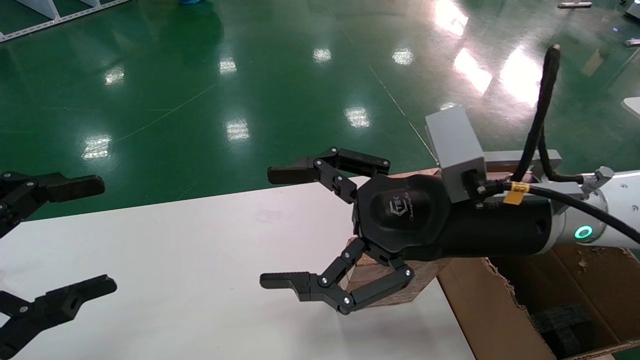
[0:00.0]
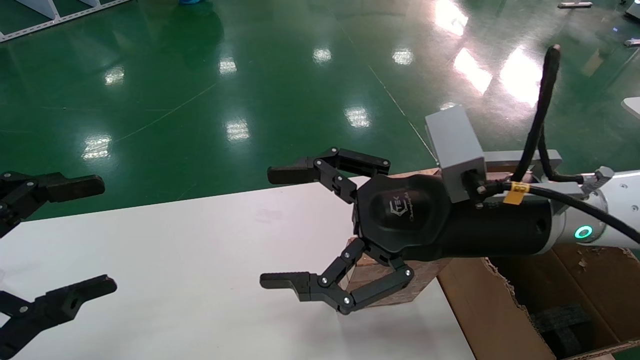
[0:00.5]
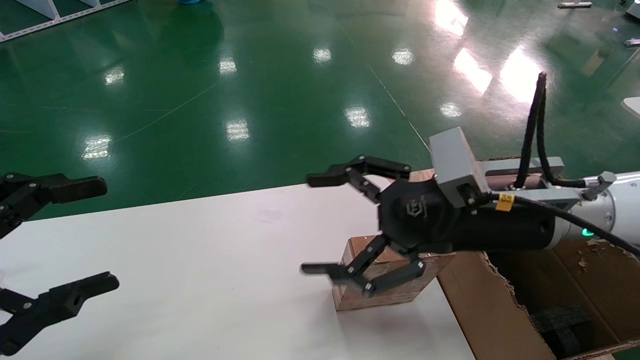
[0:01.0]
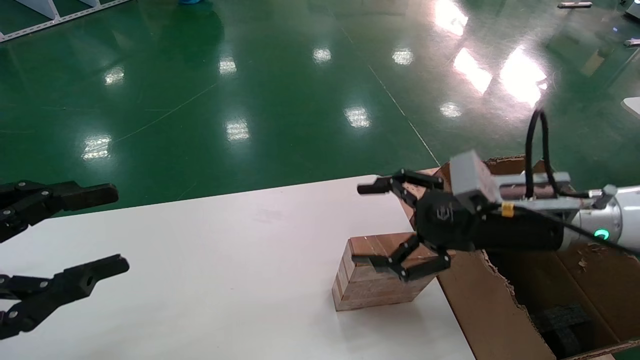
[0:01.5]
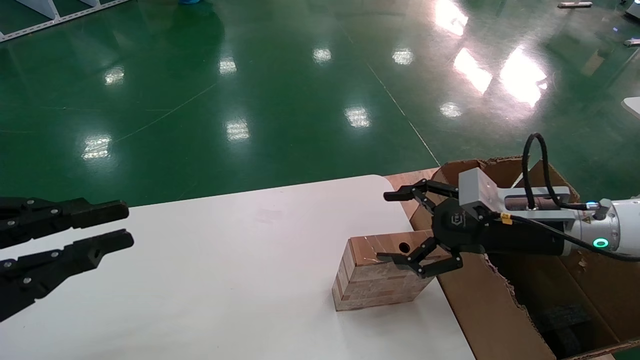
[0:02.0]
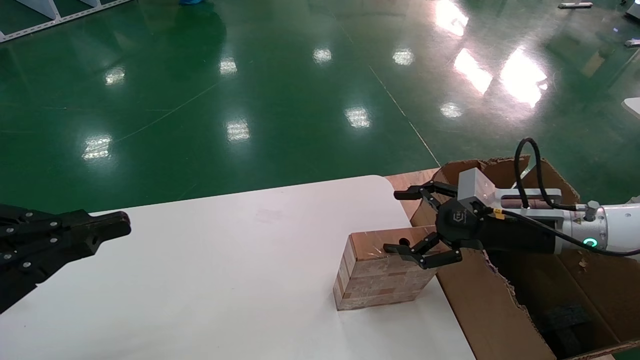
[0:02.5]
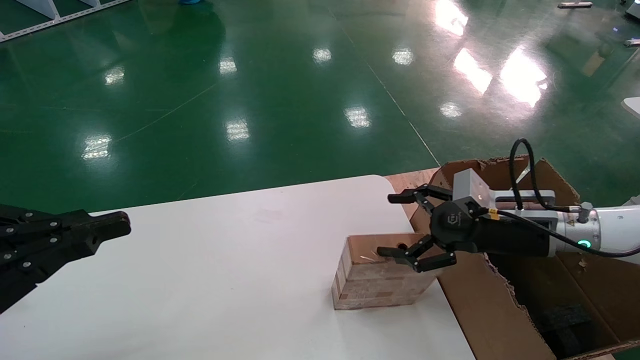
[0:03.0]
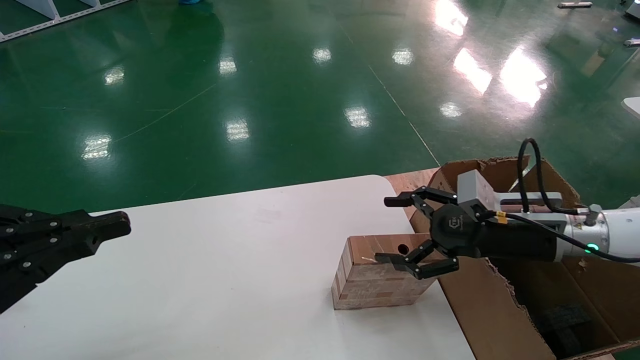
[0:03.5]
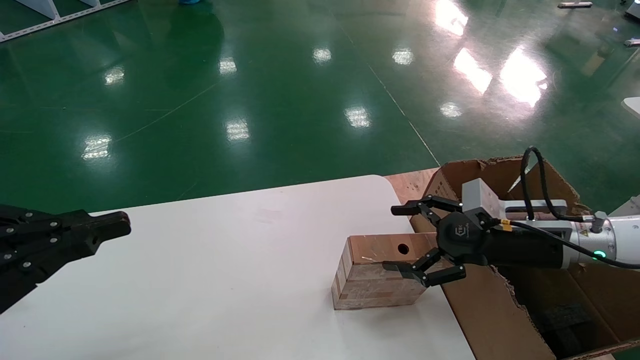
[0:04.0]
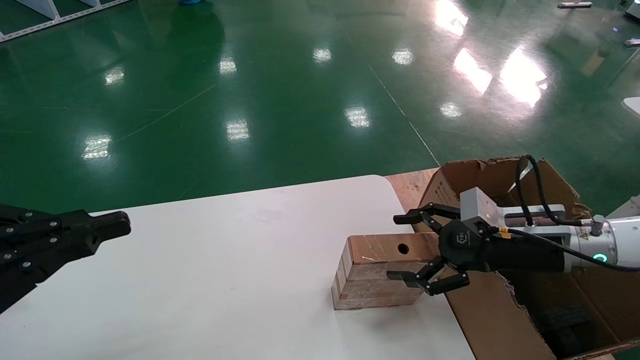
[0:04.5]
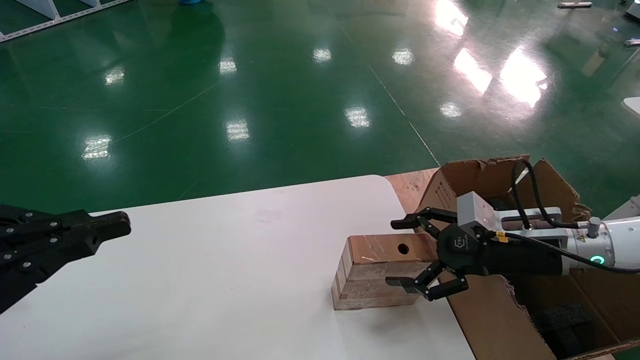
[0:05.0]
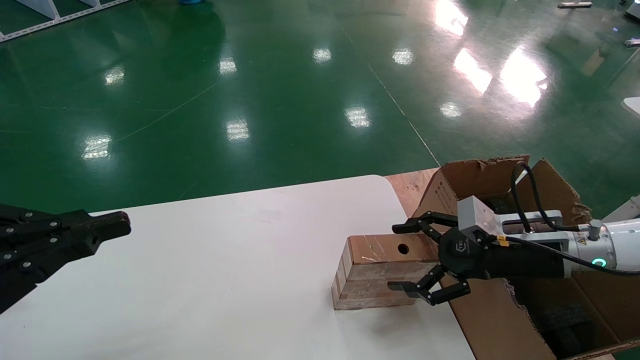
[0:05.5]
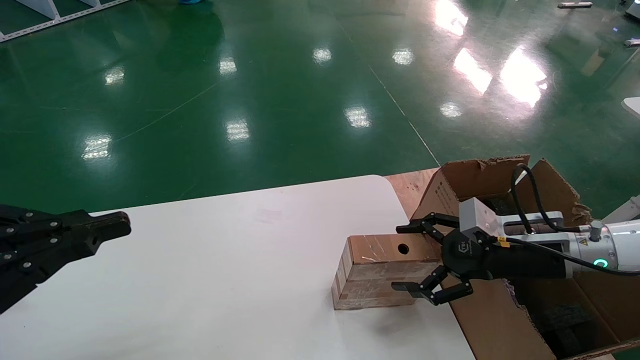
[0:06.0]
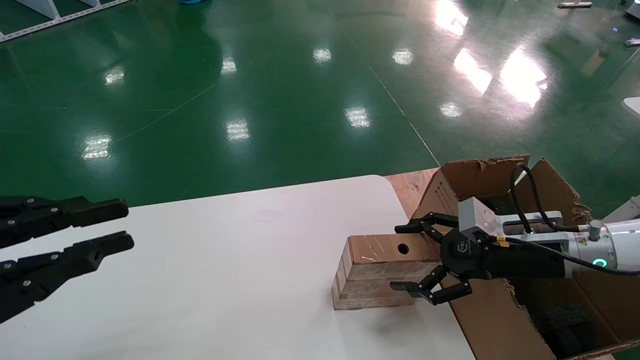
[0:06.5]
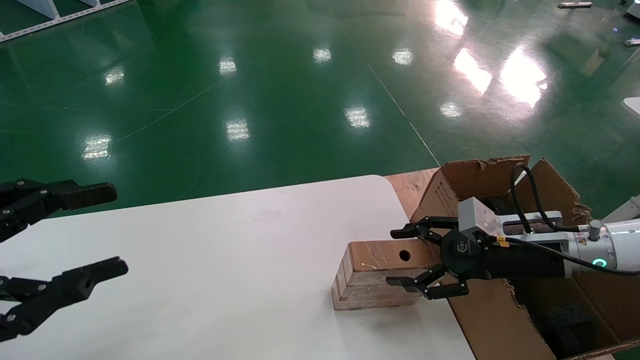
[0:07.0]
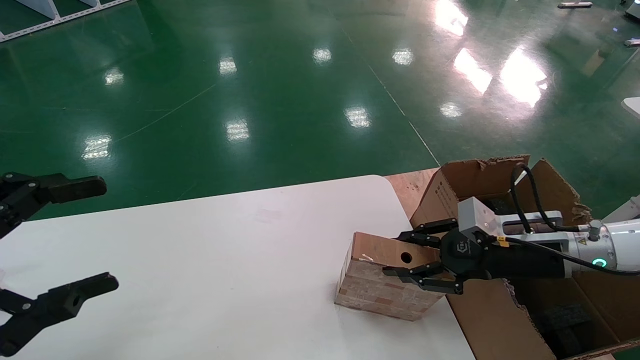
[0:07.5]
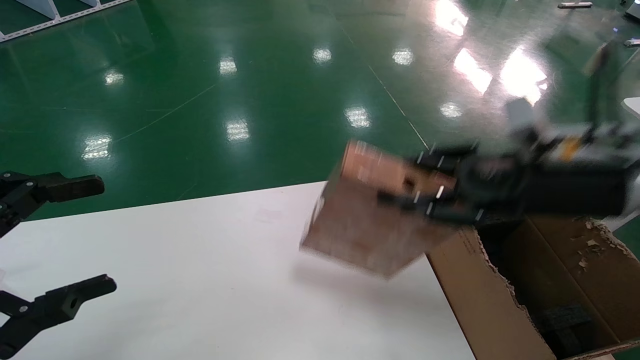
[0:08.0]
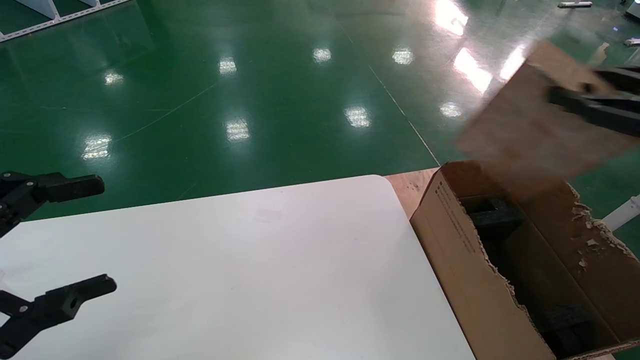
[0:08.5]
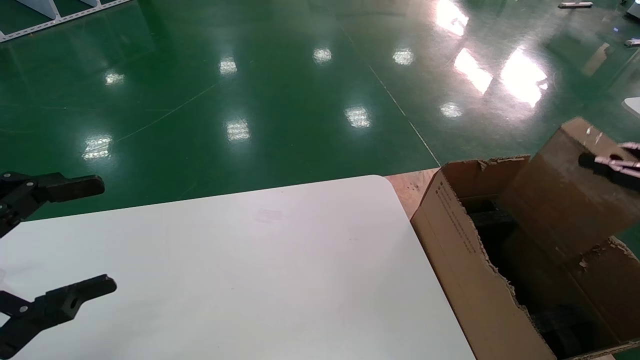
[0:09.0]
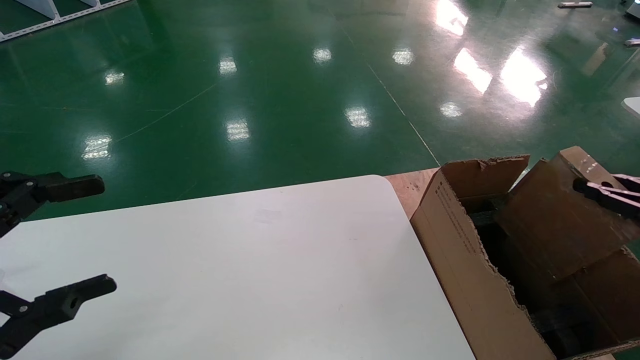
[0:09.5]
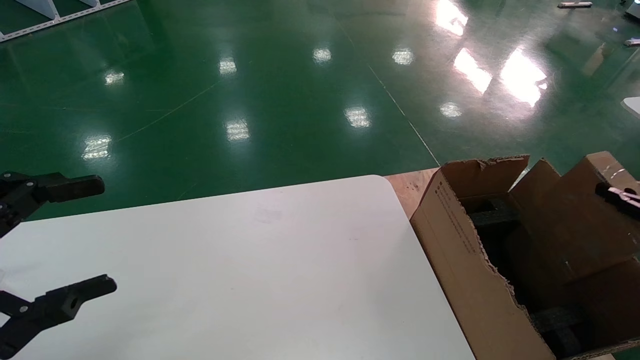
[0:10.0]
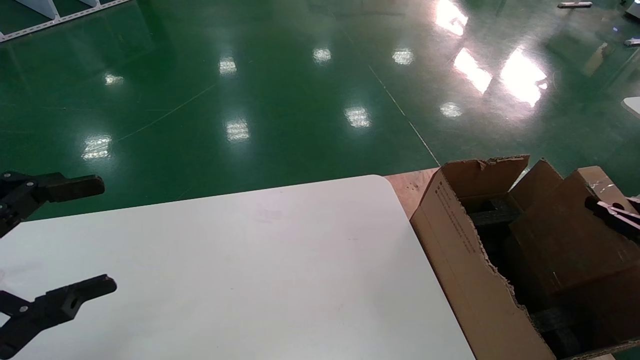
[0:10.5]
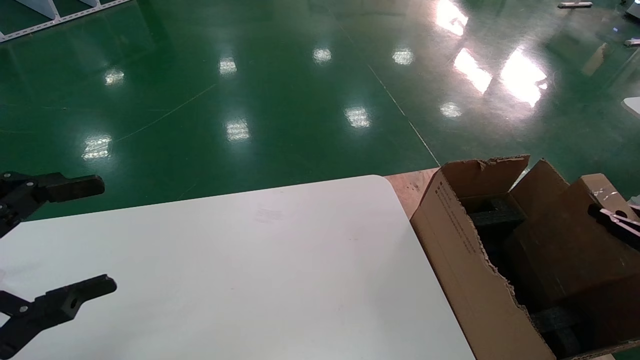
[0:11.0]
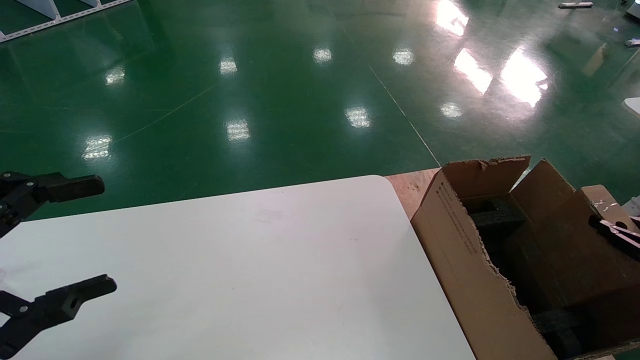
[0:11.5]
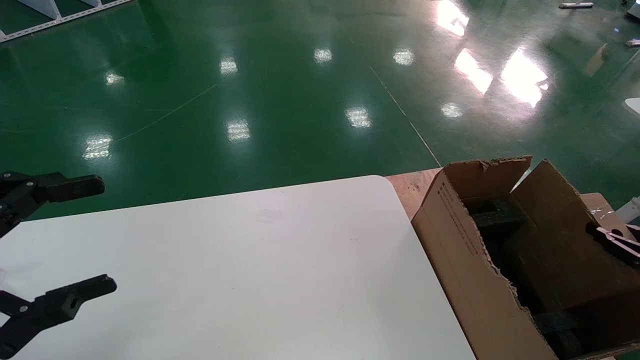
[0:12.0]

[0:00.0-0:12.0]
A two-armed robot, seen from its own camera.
Task of the whole recording: put the box on the table into the big box.
Step, 0:01.5 to 0:07.5: Pick up the mouse and the power cord paper box.
0:00.0 to 0:02.0: The right gripper is displaced to the right, downward and forward by about 15 cm, while the left gripper closes its fingers.
0:02.0 to 0:06.0: The grippers move only a little.
0:06.0 to 0:08.0: The left gripper opens up, while the right gripper travels upward by approximately 15 cm, and closes up.
0:08.0 to 0:10.0: The right gripper moves to the right and downward, about 25 cm.
0:10.0 to 0:12.0: The right gripper goes roughly 10 cm downward.

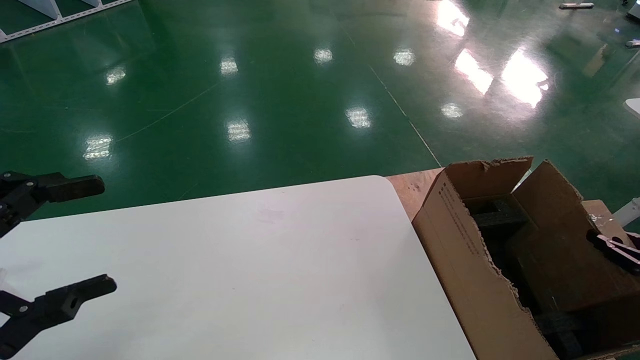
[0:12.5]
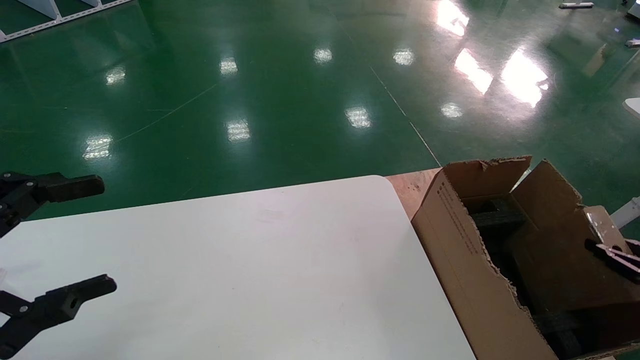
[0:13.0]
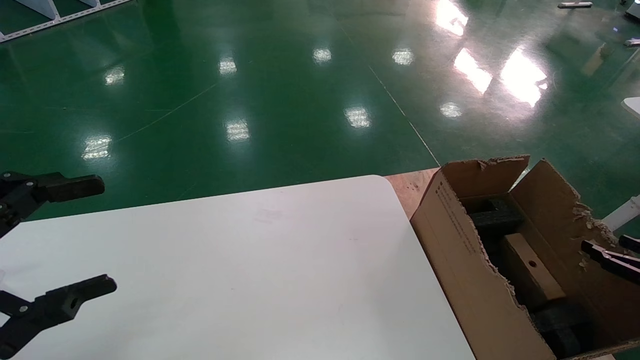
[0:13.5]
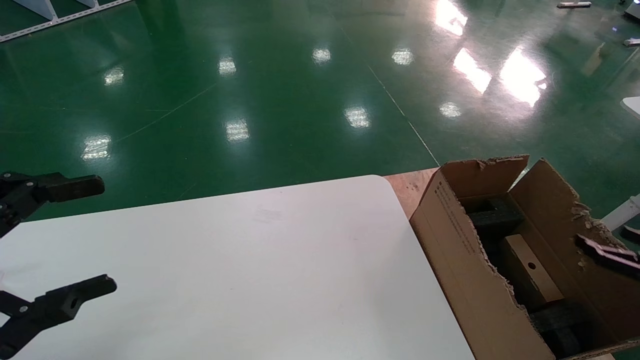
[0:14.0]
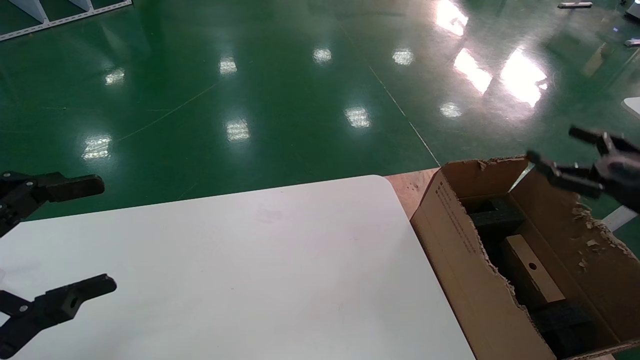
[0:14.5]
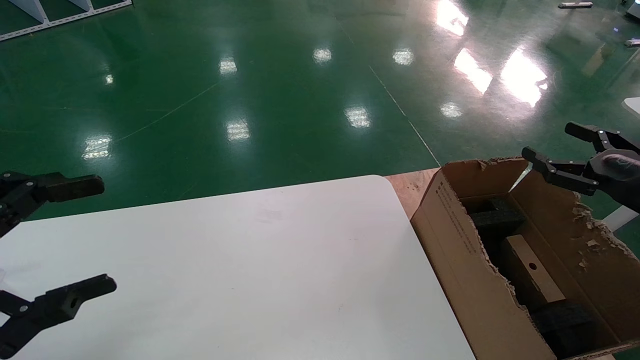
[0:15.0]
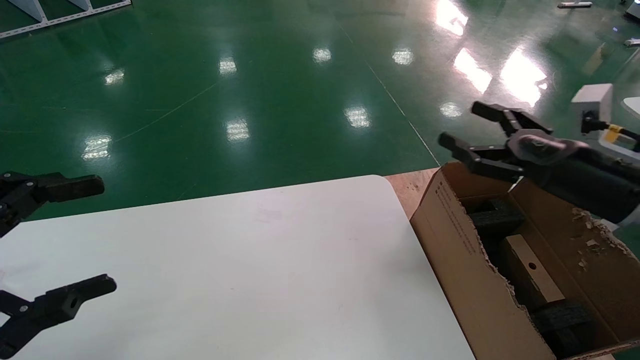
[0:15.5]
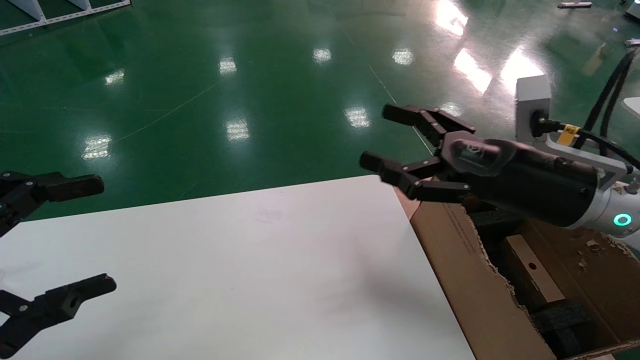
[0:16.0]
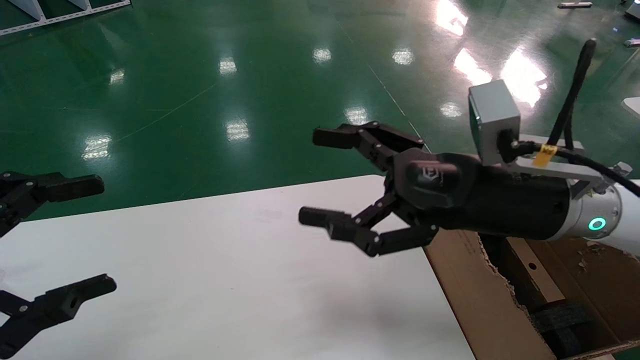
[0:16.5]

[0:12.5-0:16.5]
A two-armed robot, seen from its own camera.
Task of the whole recording: put the box on the table into the big box.
0:12.5 to 0:14.5: The right gripper moves upward, to the left and forward, approximately 15 cm, and opens up.
0:14.5 to 0:16.5: The right gripper is displaced to the left by approximately 30 cm.
